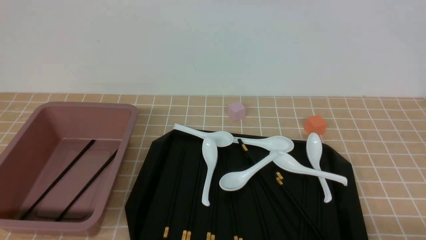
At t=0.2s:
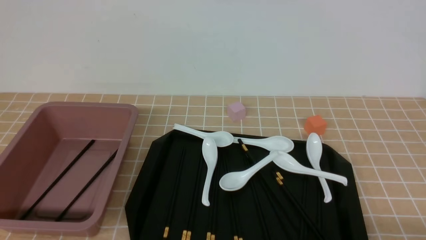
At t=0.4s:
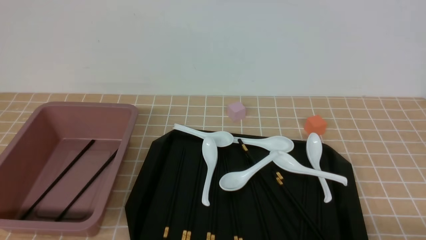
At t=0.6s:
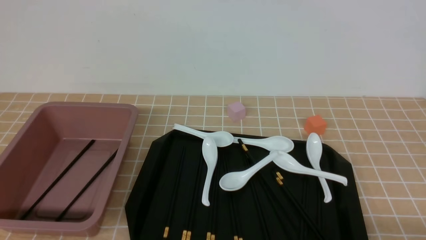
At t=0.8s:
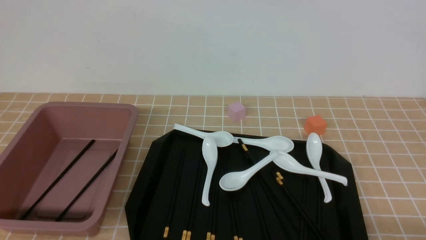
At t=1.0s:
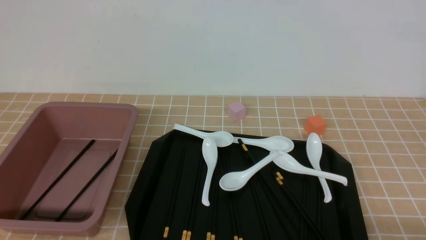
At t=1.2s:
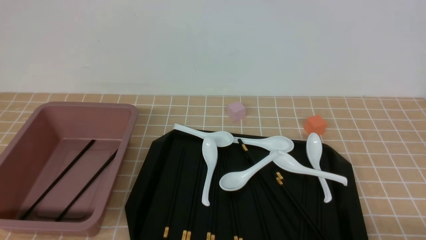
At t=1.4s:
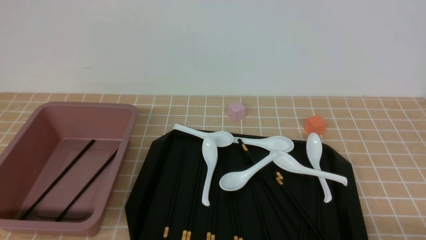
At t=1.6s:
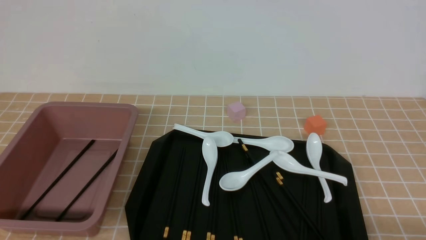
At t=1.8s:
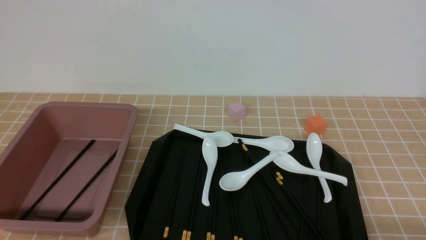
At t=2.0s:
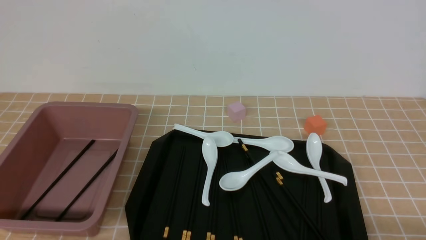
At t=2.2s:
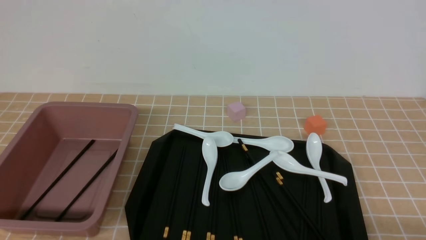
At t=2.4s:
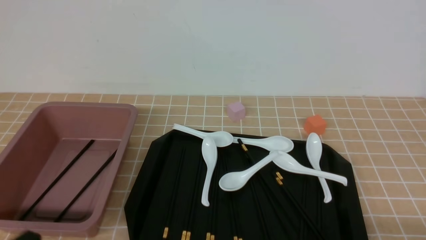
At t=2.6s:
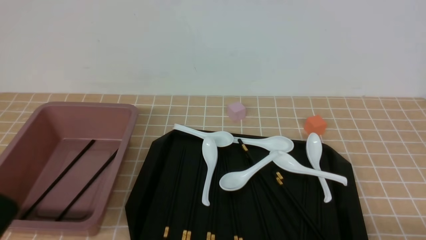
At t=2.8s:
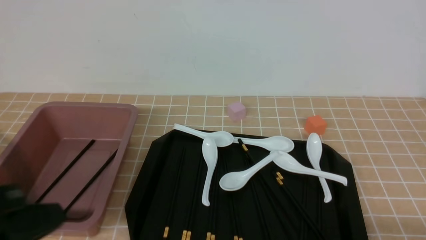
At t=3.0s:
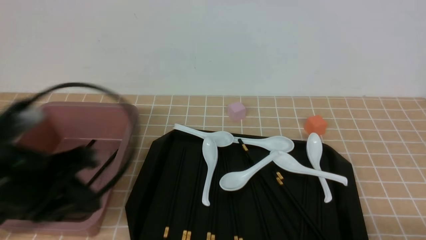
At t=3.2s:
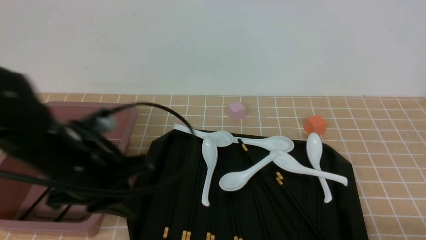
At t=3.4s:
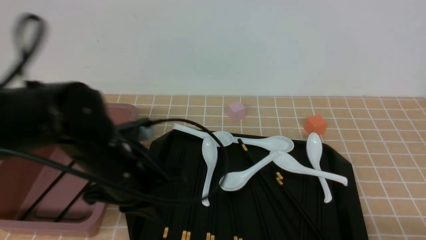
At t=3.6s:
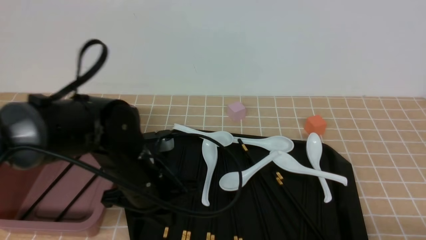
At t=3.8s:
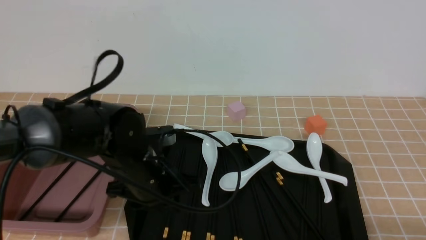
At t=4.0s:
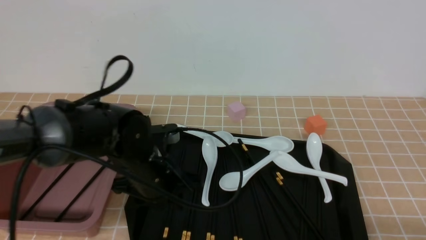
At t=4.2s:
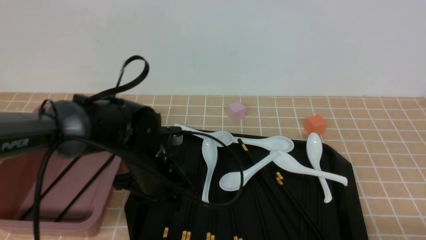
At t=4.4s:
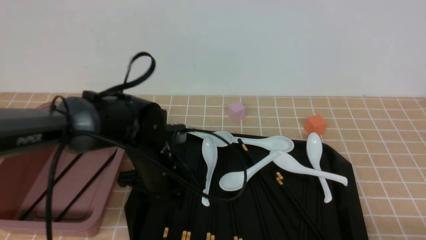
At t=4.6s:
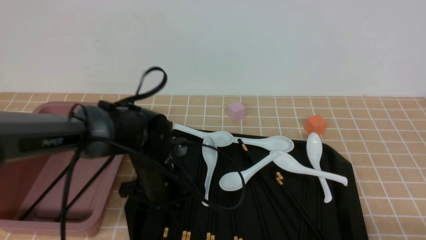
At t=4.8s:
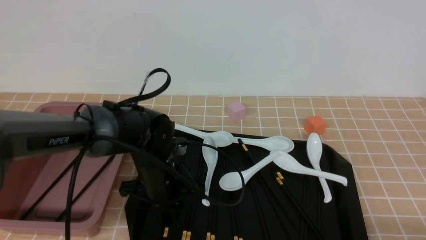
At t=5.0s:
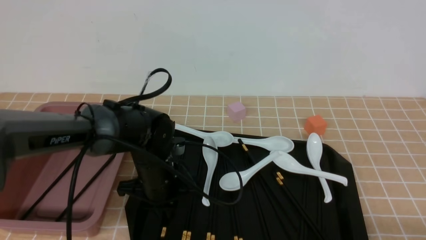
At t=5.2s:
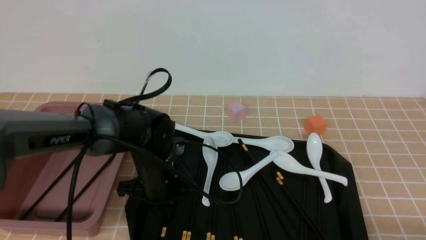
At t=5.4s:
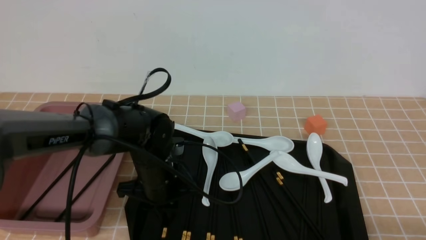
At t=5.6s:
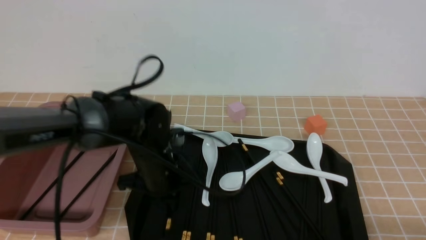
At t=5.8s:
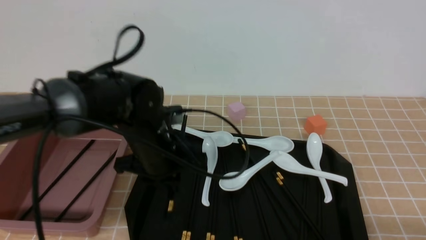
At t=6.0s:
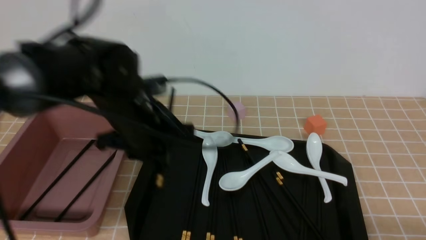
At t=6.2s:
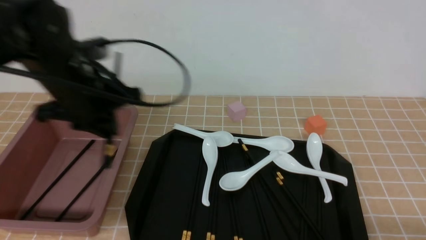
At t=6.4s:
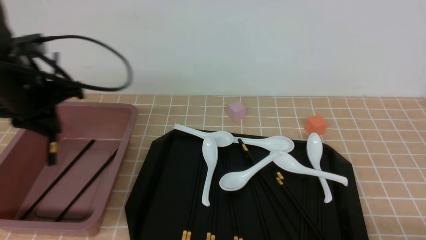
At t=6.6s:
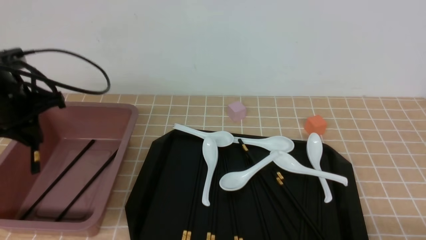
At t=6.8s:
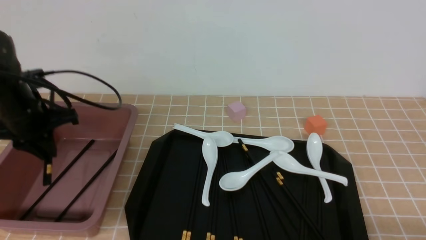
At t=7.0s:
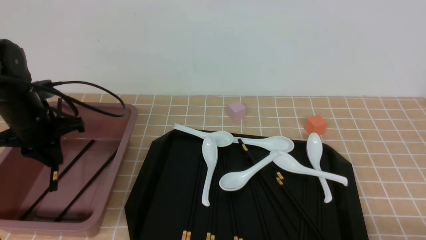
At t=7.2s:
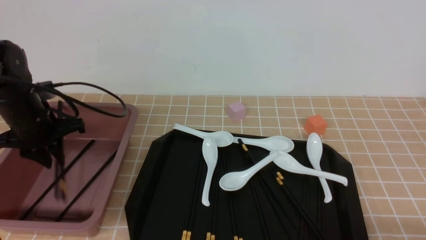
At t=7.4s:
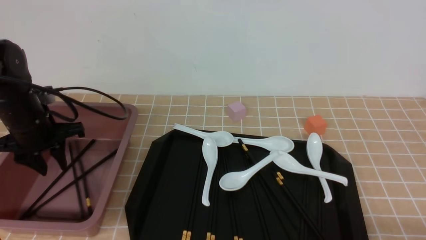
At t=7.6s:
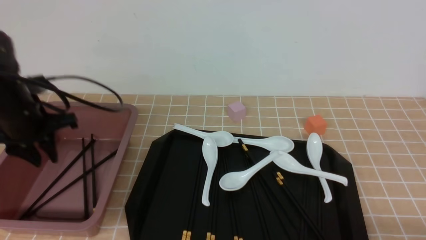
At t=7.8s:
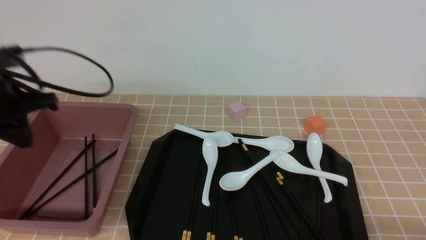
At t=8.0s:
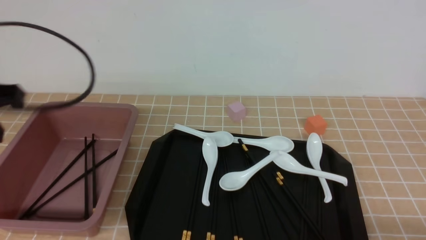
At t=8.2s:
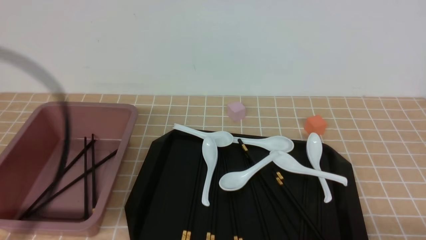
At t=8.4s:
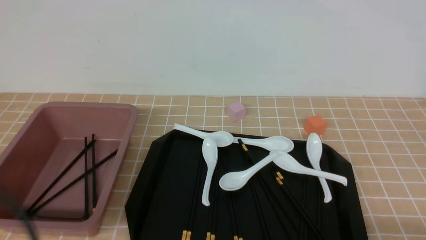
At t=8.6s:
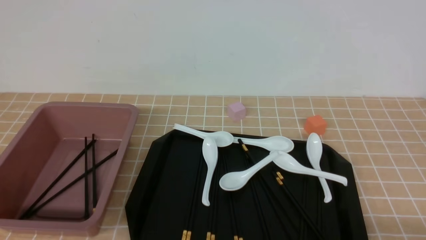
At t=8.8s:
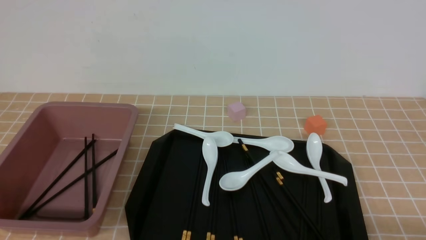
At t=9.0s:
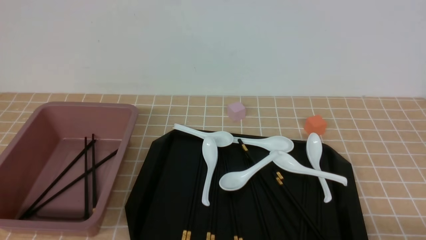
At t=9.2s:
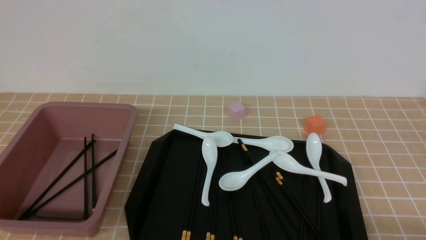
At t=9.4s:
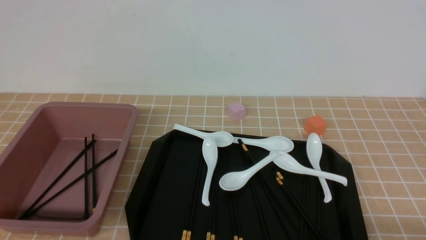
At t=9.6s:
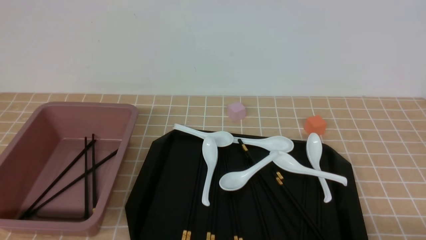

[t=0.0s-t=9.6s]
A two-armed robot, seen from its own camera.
Step, t=0.0s to t=5.8s: use the left arm to grab a pair of chopsticks.
Step, t=6.0s to t=7.4s: use the left arm to put the chopsticks into the lunch box.
t=0.0s to t=1.6s: The two grippers keep their place.
t=1.6s to t=3.2s: The left gripper heads forward, to the right and upward, covering approximately 25 cm, and closes up.
t=3.2s to t=4.8s: The left gripper heads downward, forward and to the right, covering about 15 cm, and opens.
t=4.8s to t=6.4s: The left gripper is displaced to the left and upward by roughly 25 cm, and closes its fingers.
t=6.4s to t=8.0s: The left gripper travels backward and upward by about 15 cm, and closes.
t=8.0s to t=9.6s: The left gripper shifts roughly 25 cm downward and backward.

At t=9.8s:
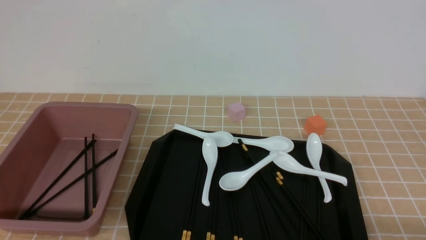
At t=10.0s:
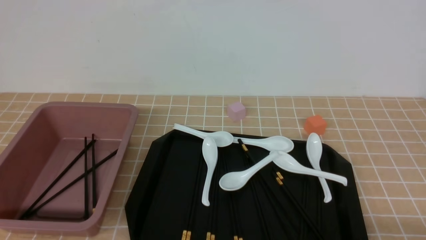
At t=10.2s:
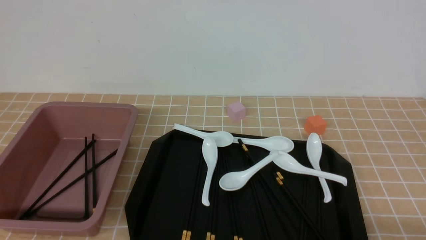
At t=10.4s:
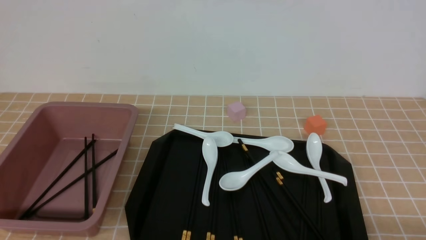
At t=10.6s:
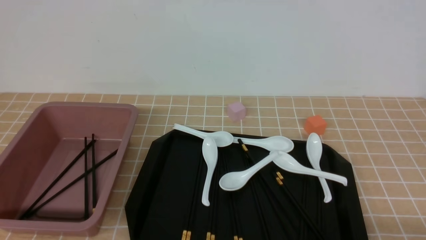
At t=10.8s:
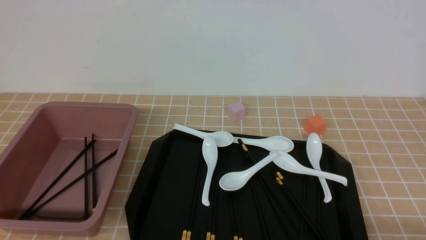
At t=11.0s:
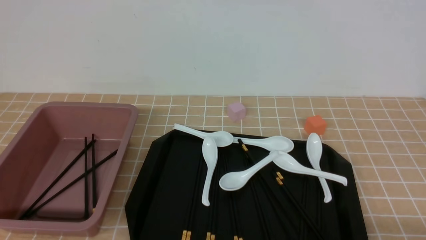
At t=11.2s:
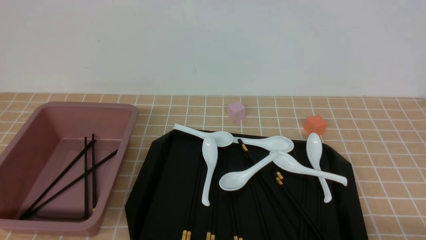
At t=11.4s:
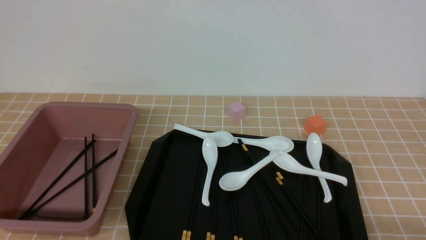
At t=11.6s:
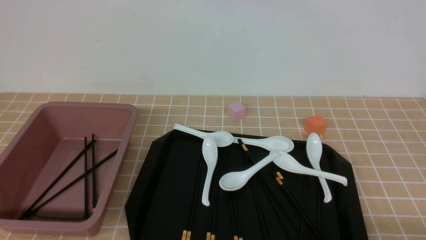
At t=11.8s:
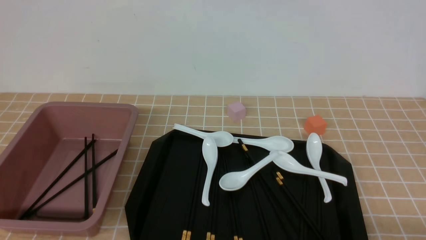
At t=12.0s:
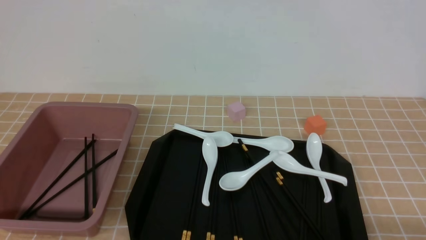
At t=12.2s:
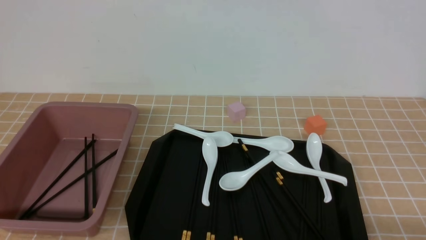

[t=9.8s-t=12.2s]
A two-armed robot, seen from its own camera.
t=9.8s to t=12.2s: The two grippers keep their place.
